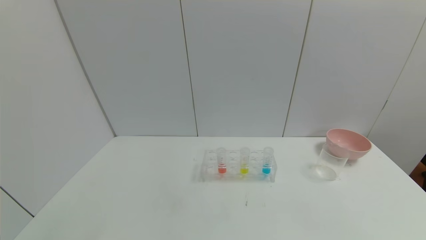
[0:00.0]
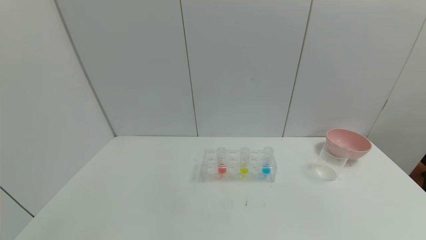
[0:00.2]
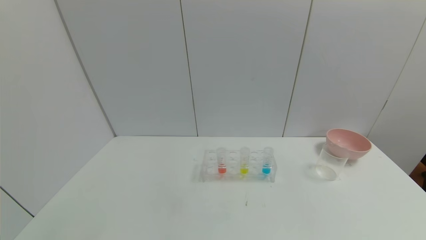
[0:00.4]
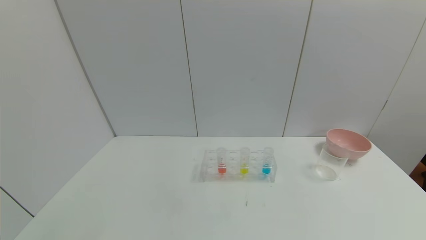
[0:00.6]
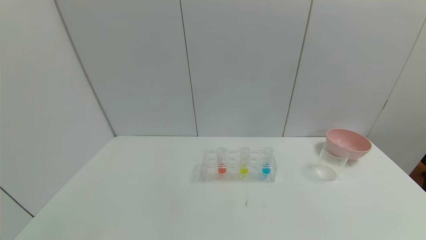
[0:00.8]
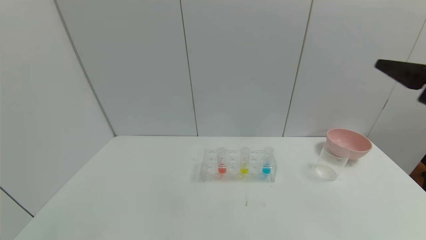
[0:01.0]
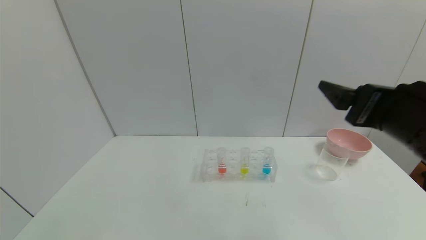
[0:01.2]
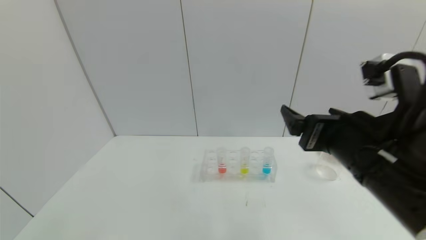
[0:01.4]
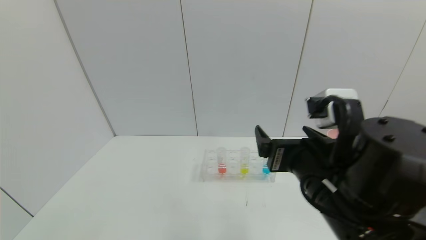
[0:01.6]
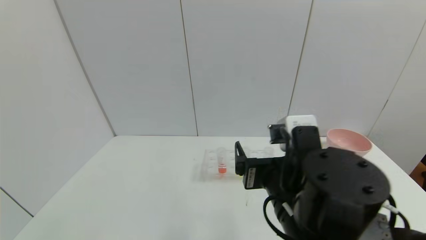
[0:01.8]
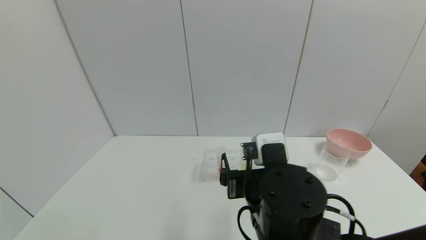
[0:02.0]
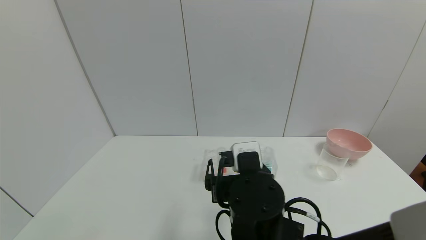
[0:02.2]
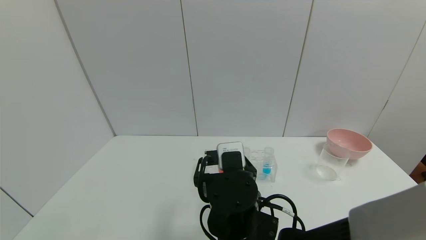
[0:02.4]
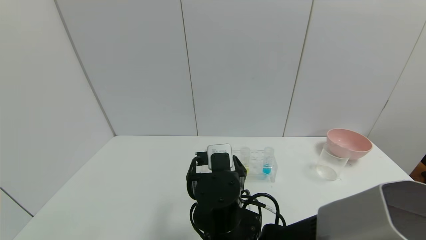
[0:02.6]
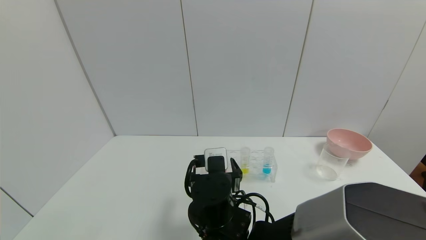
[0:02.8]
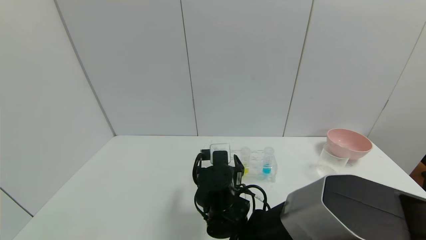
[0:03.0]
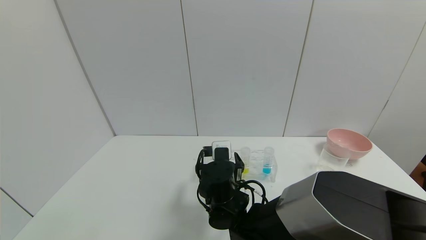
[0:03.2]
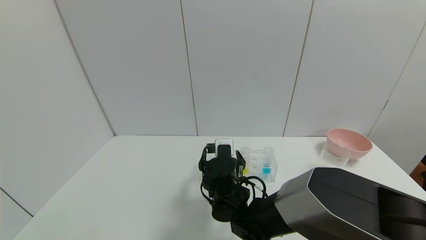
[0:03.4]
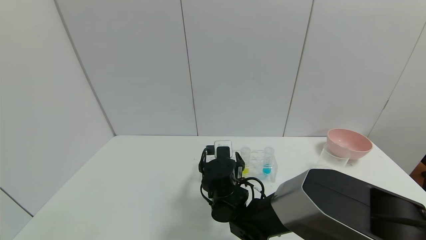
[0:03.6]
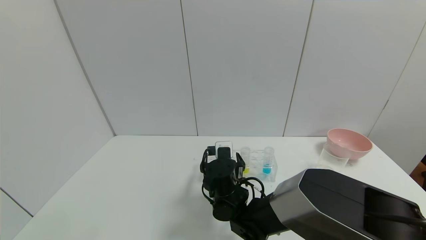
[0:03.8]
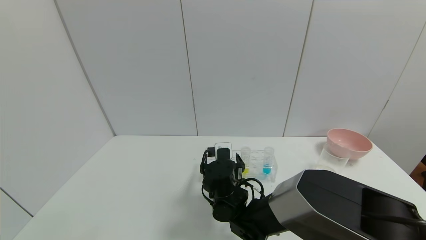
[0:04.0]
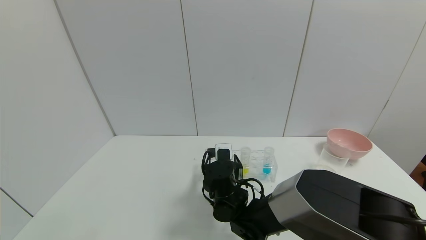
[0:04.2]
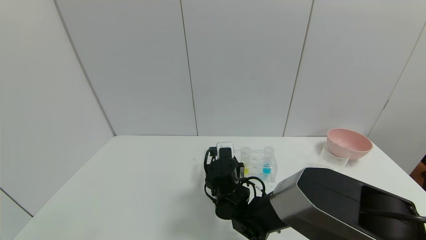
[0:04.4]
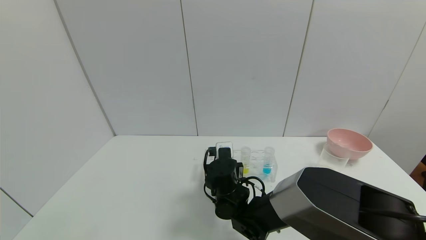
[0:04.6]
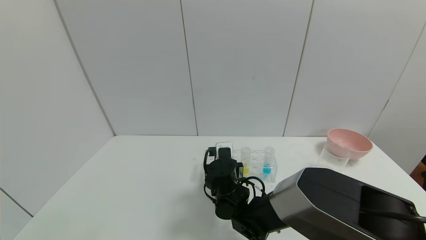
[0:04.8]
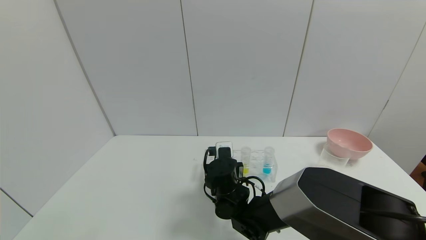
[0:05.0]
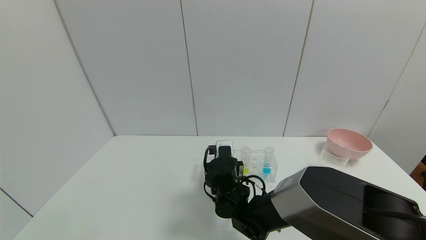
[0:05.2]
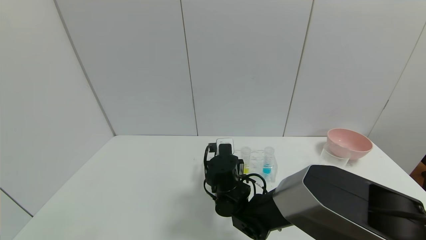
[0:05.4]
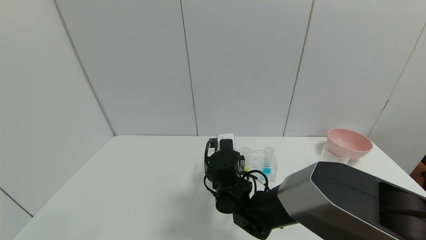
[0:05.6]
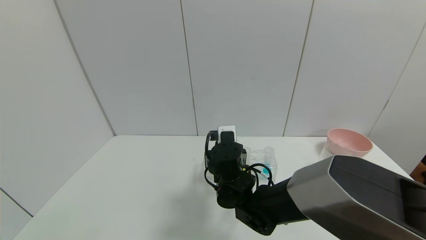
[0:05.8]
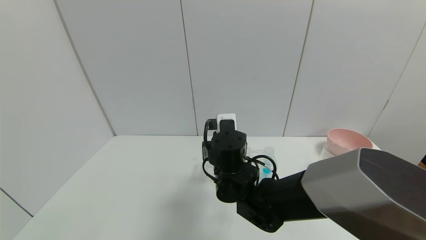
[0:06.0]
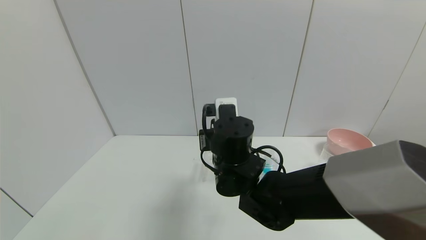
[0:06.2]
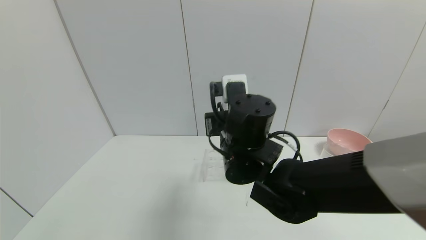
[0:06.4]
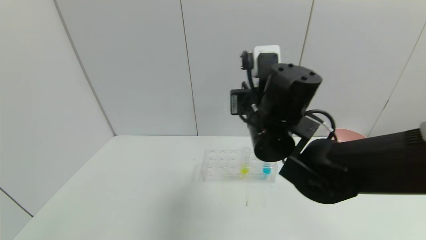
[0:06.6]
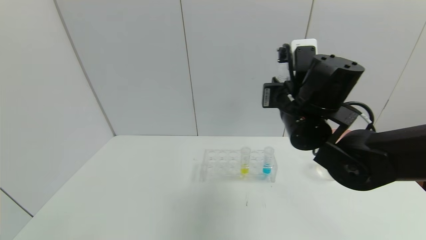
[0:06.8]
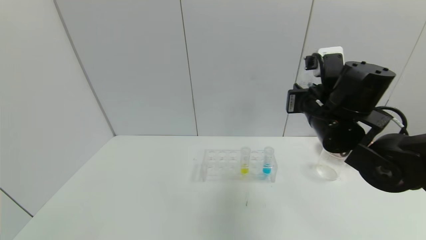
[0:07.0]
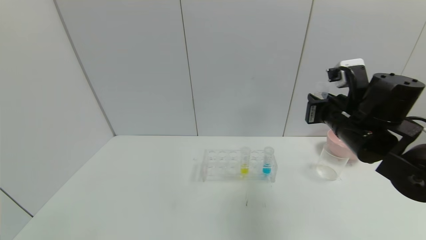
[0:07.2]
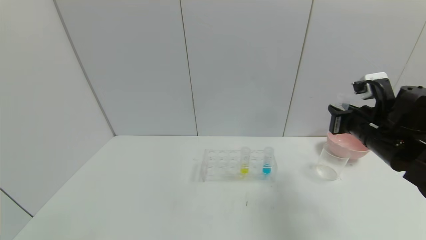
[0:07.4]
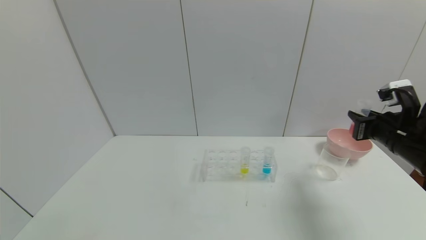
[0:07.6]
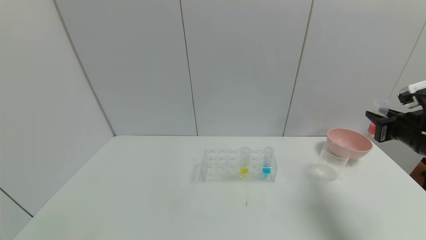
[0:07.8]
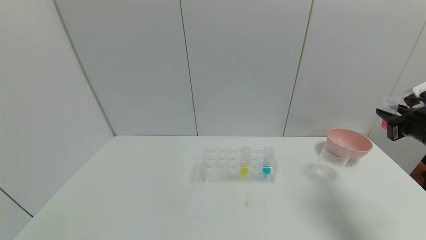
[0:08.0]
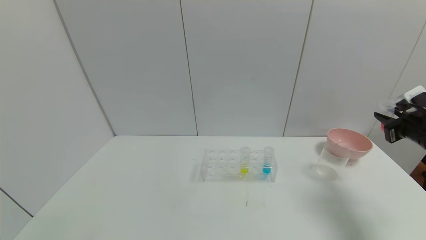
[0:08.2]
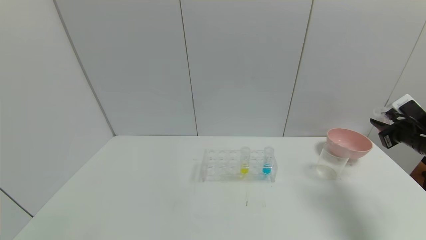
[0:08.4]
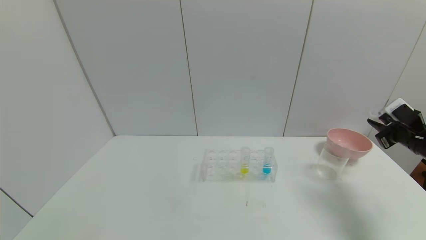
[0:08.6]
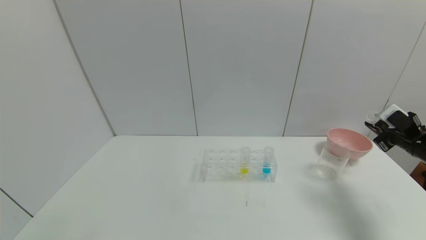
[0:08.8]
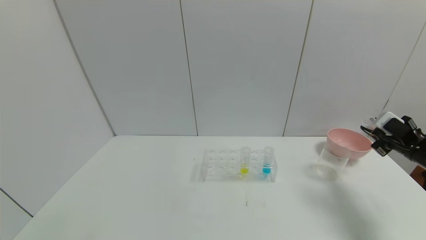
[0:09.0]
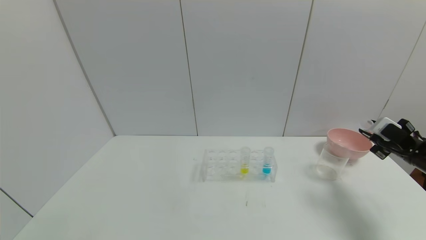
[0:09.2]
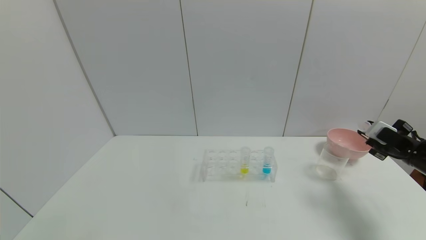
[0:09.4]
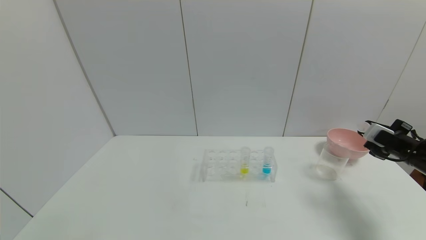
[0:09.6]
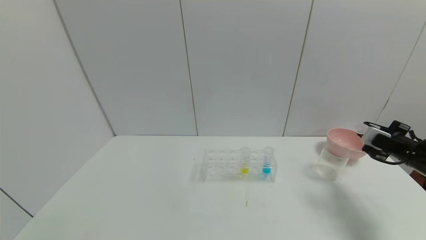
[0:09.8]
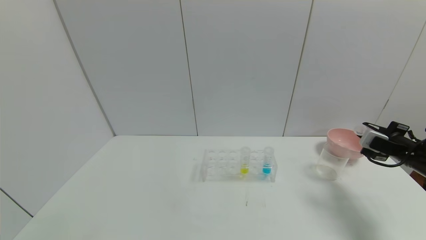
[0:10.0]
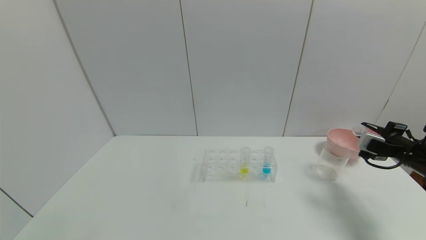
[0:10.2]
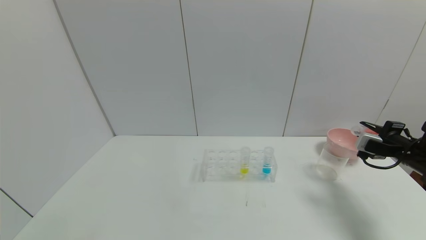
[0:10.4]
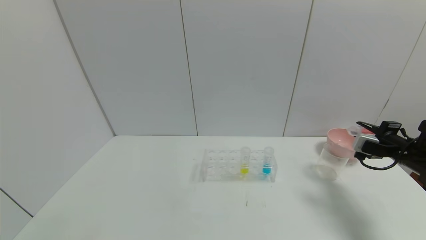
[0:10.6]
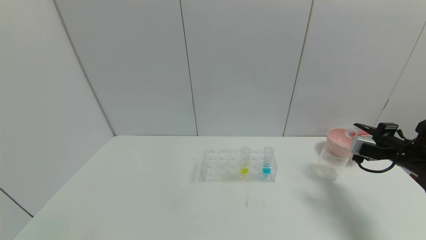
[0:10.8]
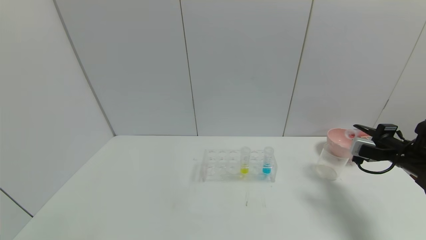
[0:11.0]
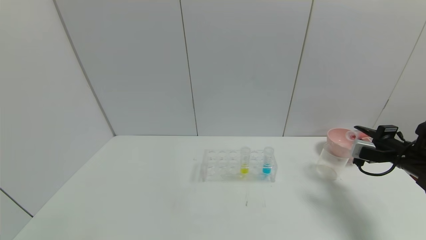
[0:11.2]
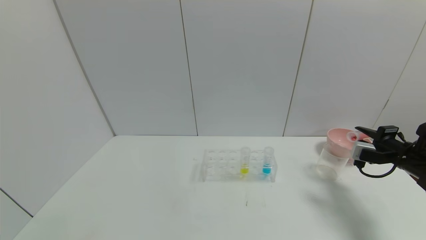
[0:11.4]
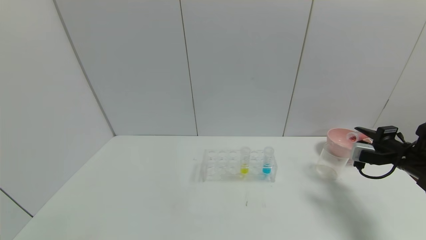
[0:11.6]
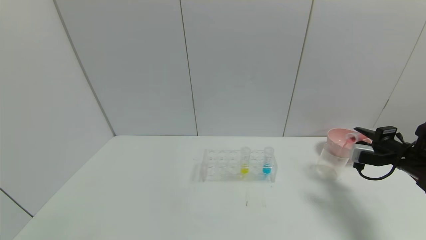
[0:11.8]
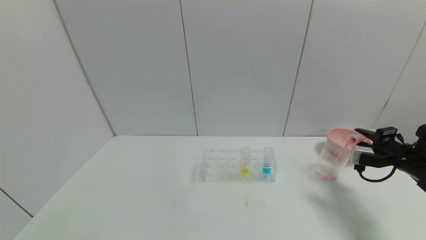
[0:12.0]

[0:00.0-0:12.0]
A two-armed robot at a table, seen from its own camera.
Task of the whole recording: pick up the test tube with yellow pigment and the test tube with red pigment by grippers and pour them into the beaker.
Step, 0.0 to 4.8 s: Grasp the red reagent with the right gripper.
0.0 to 1.6 s: The right gripper travels to the left and forward by about 30 cm.
1.6 to 3.0 s: The right gripper is displaced to the left, downward and forward by roughly 20 cm.
3.0 to 4.4 s: The right gripper moves forward, some 5 cm, and closes its fingers.
4.4 to 6.0 s: The right gripper is displaced upward by approximately 10 cm, and closes its fingers.
6.0 to 7.6 s: The right gripper moves to the right, some 35 cm.
7.6 to 9.0 s: The right gripper travels to the right by approximately 10 cm.
10.4 to 12.0 s: There are only small adjustments of the grippers.

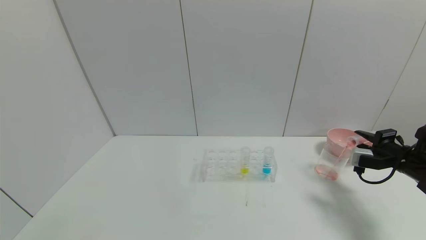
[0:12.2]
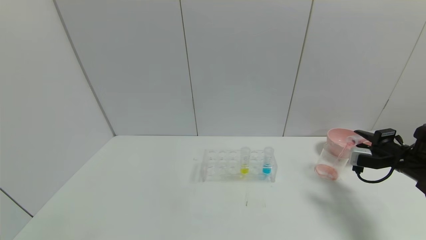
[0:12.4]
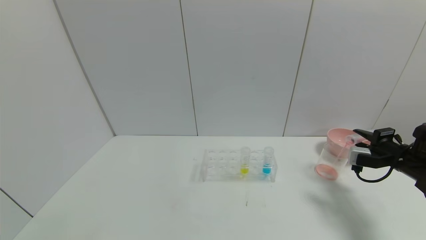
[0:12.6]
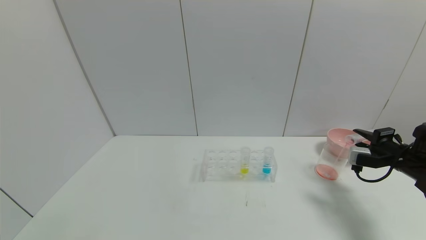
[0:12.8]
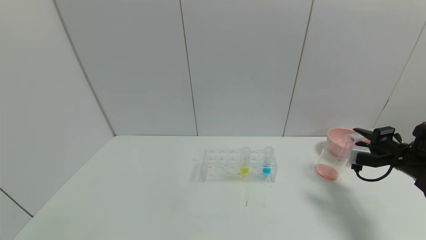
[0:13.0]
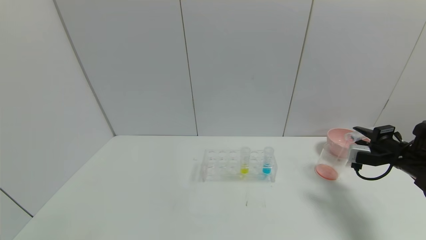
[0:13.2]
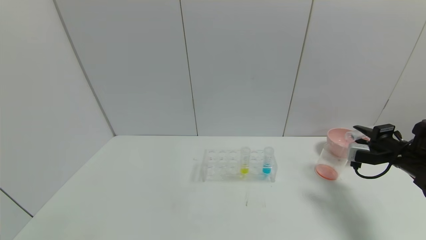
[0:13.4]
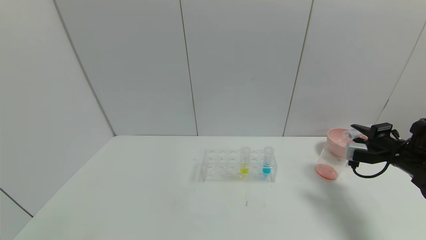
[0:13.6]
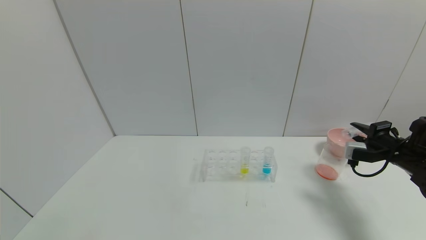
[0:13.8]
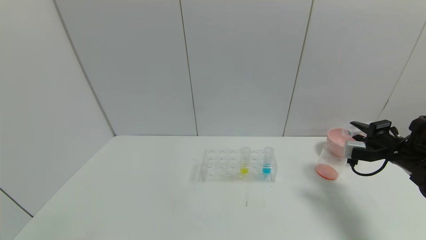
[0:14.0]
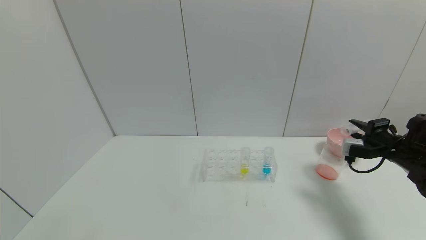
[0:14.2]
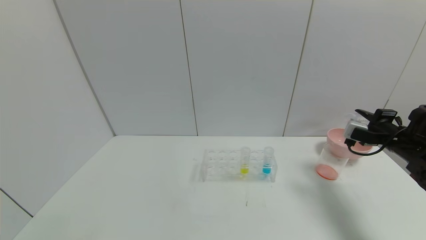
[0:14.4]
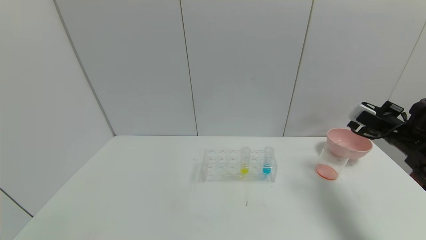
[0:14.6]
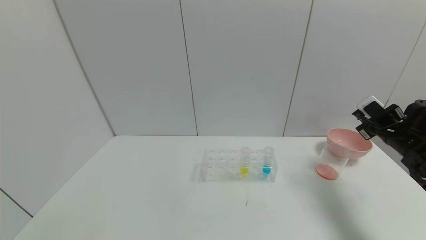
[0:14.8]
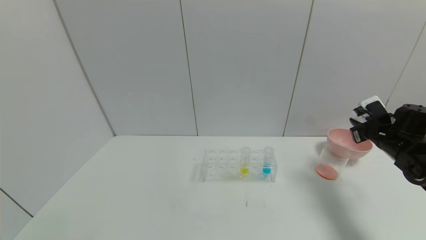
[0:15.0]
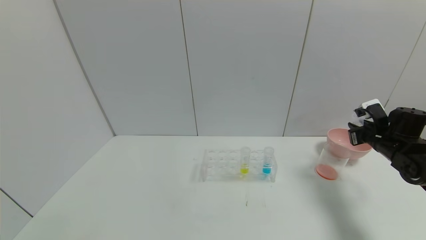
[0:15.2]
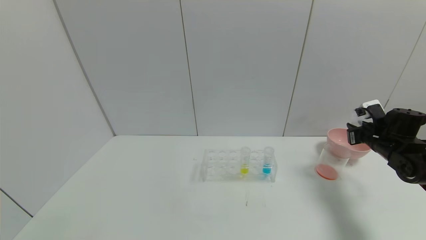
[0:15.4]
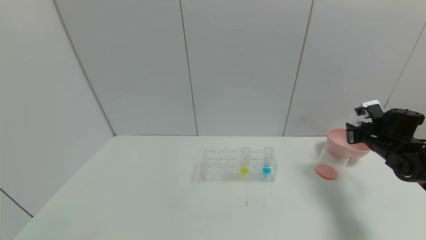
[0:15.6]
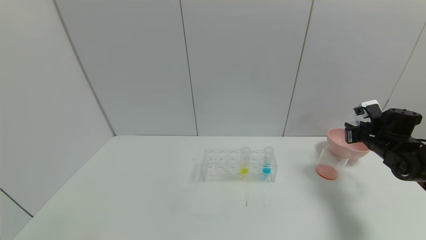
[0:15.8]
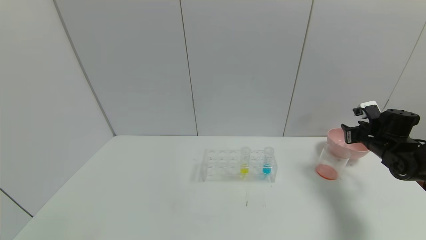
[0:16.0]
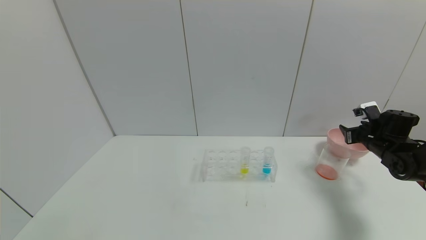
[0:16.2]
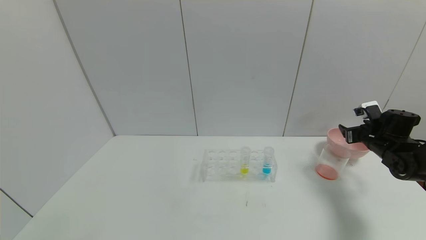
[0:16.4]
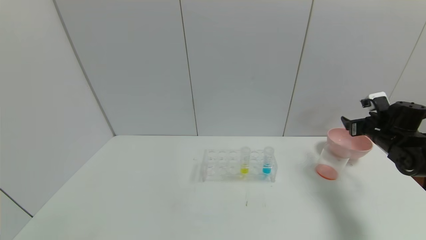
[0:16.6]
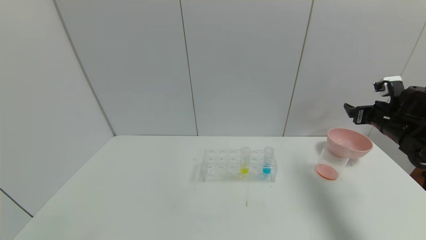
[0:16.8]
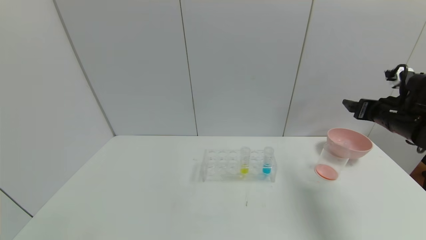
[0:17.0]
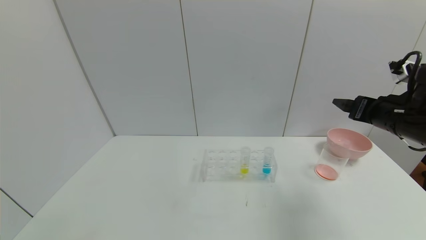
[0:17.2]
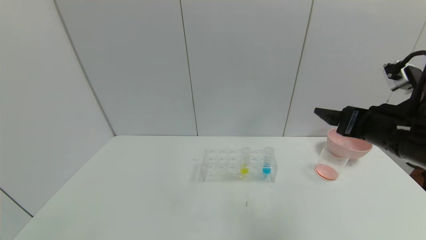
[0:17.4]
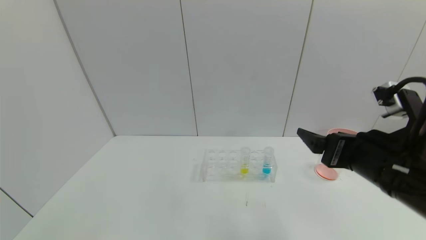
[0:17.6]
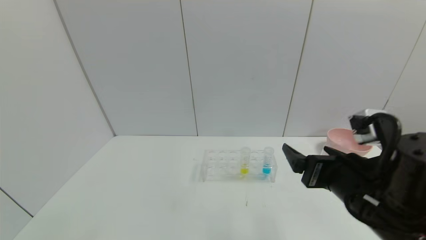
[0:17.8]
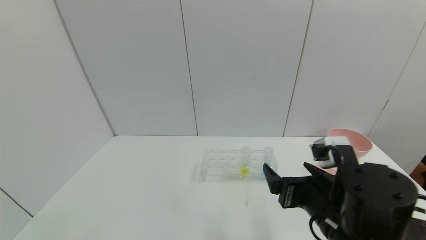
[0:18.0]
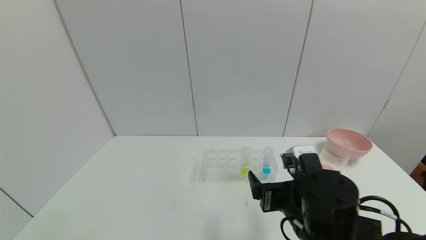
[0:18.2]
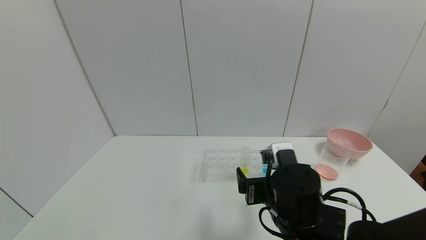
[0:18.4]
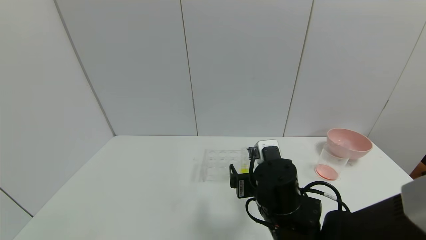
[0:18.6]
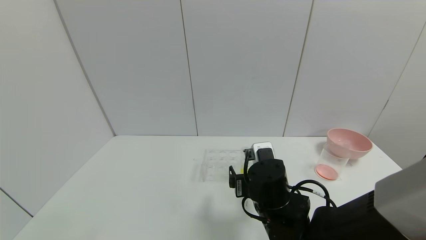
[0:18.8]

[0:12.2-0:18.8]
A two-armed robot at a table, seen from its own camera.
Task of the whole recording: pick up the test tube with yellow pigment and the test tube with red pigment by grippers and pour them into the beaker.
Step, 14.2 to 16.6 s: Place the test tube into the bowl with the right gripper.
12.2 to 13.8 s: There are only small adjustments of the grippers.
13.8 to 15.4 s: The right gripper is displaced forward by roughly 5 cm.
15.4 to 17.2 s: The right gripper travels upward, to the left and backward by about 15 cm, and opens.
17.2 to 18.8 s: The right gripper goes approximately 30 cm to the left and downward.
